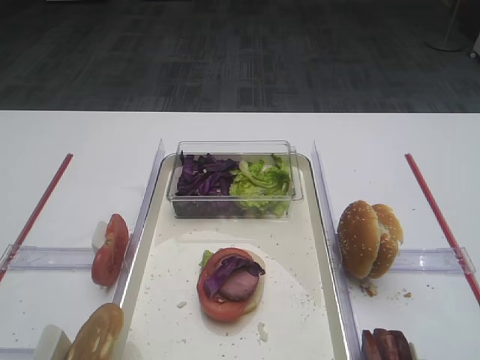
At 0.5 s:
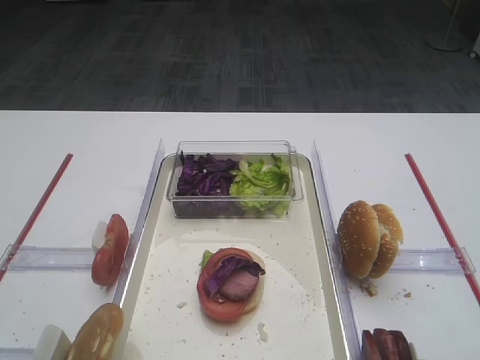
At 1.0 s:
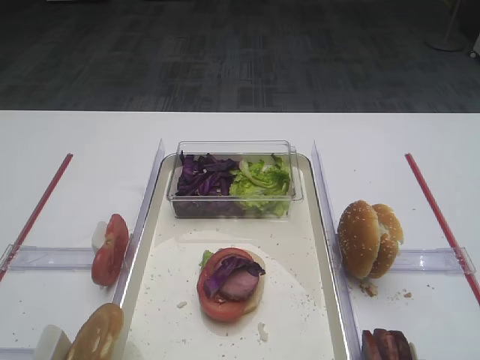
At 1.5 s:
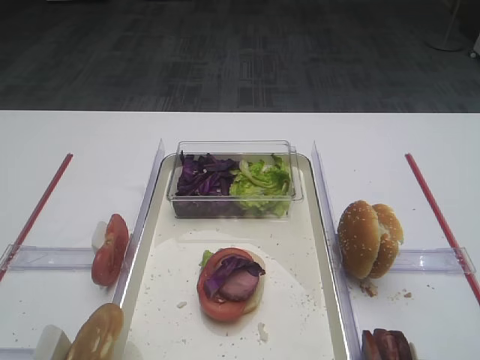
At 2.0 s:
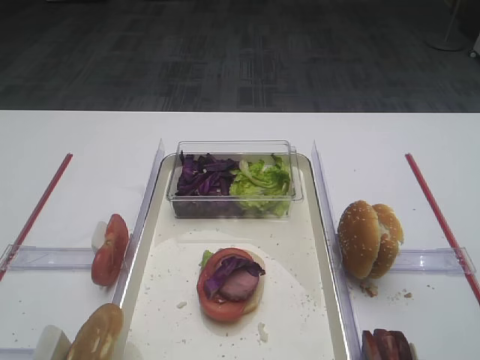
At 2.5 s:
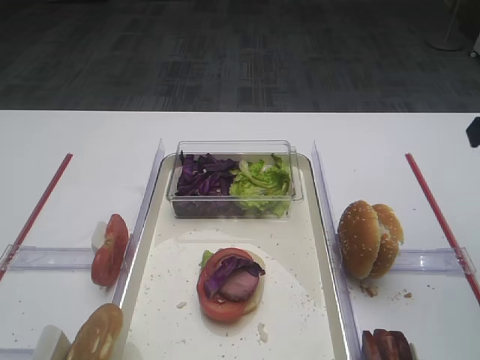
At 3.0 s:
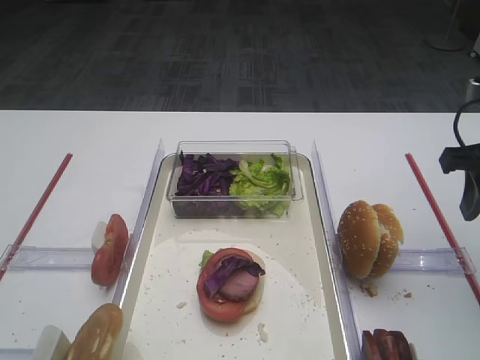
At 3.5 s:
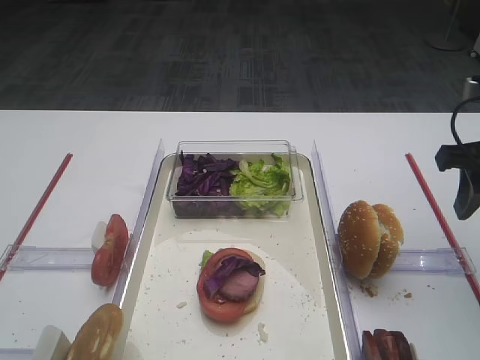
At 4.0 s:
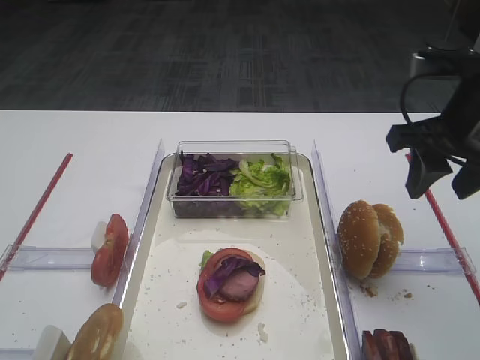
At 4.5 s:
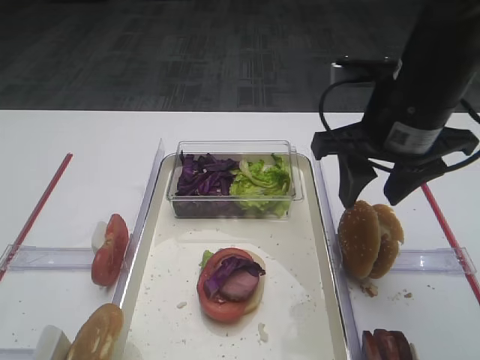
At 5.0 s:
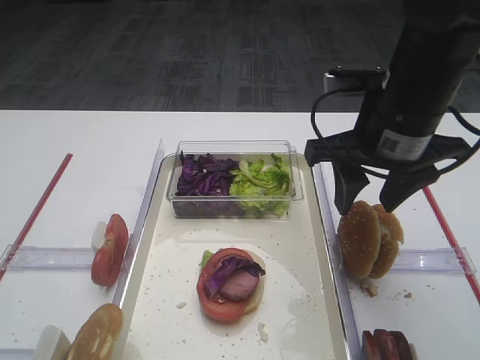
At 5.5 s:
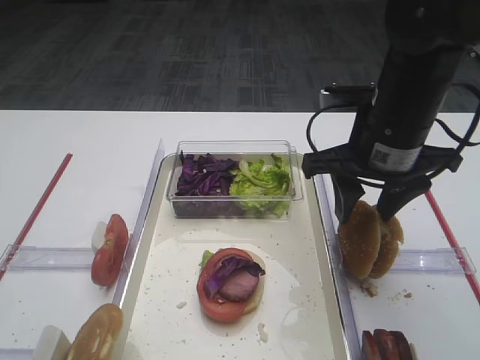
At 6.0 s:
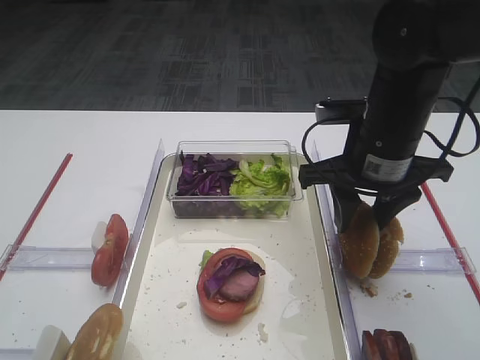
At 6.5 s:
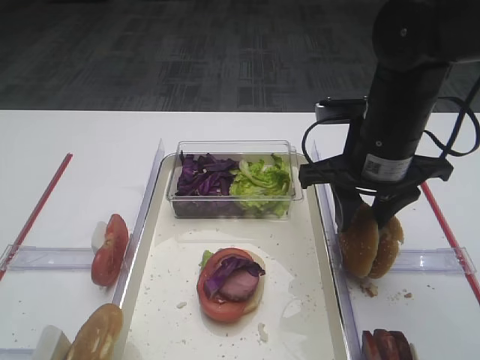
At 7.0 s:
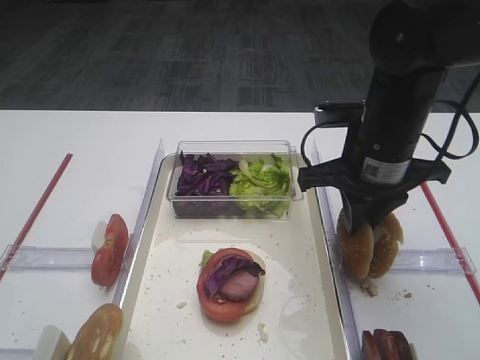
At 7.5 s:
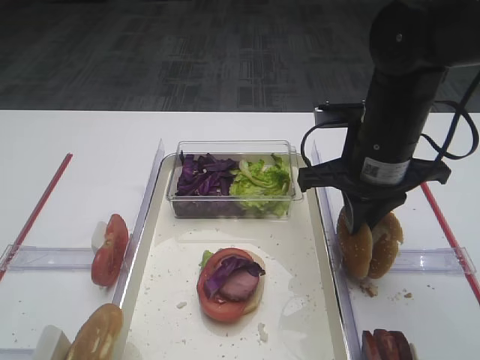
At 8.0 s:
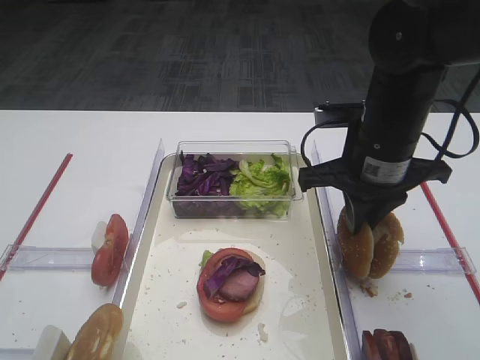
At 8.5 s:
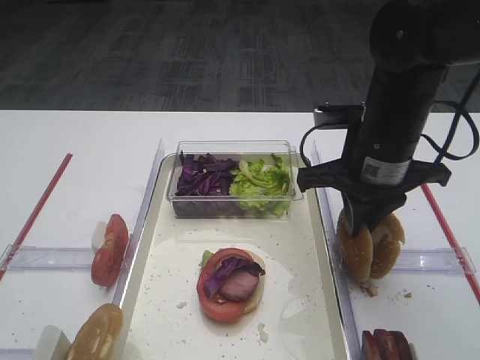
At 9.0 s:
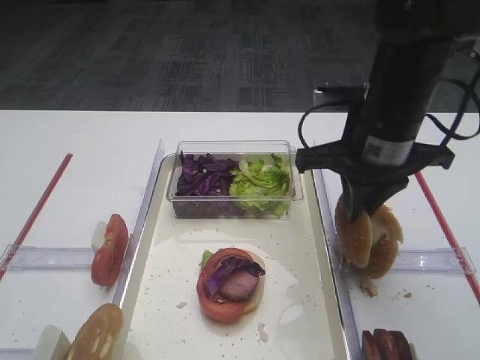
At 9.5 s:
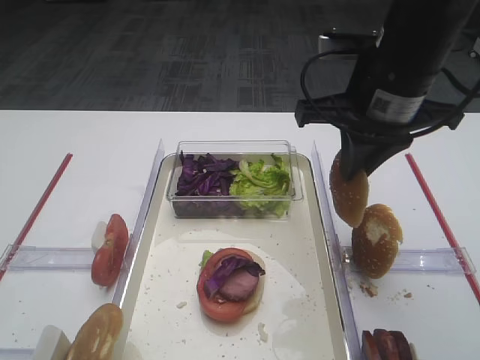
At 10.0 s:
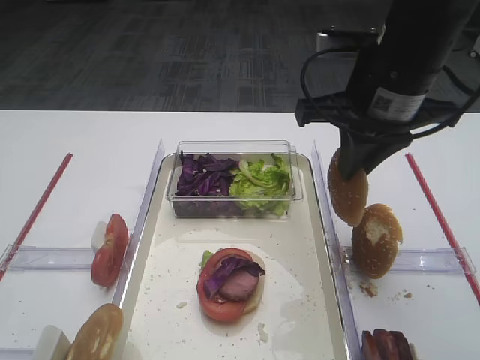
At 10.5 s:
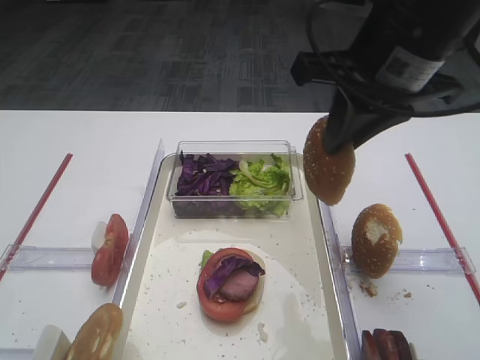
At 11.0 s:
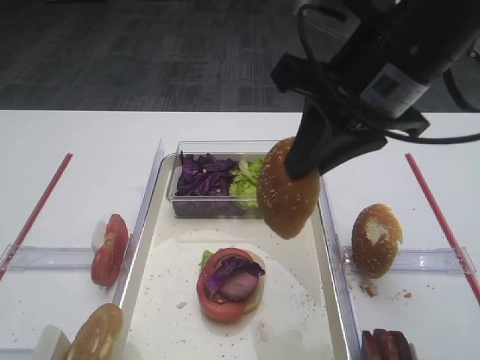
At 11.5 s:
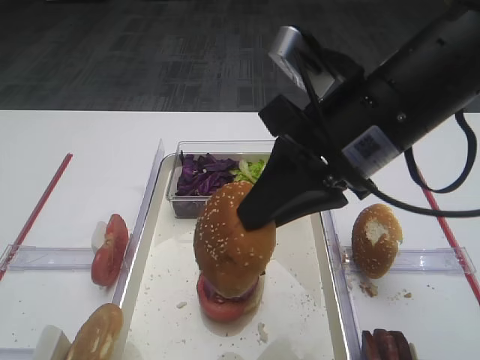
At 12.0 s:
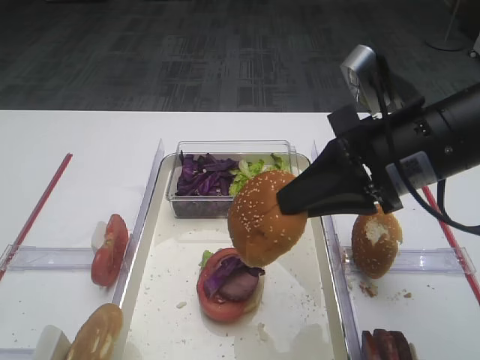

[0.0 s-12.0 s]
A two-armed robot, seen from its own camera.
Step, 0.0 to 10.0 s: Pick up the hamburger lid with the right gripper.
2.0 to 4.0 s: The right gripper travels forward and downward by roughly 15 cm.
4.0 to 6.0 s: The right gripper moves to the left, about 10 cm.
6.0 to 8.0 s: The right gripper closes up.
8.0 to 10.0 s: The right gripper travels upward by approximately 10 cm.
10.0 to 12.0 s: The right gripper travels backward by roughly 5 cm.

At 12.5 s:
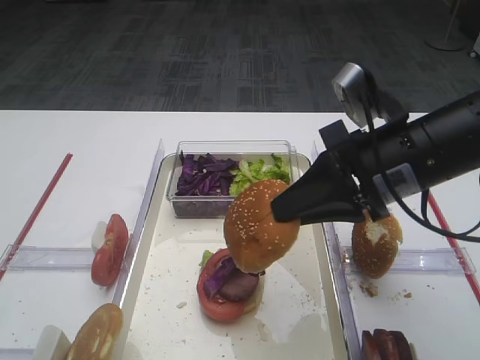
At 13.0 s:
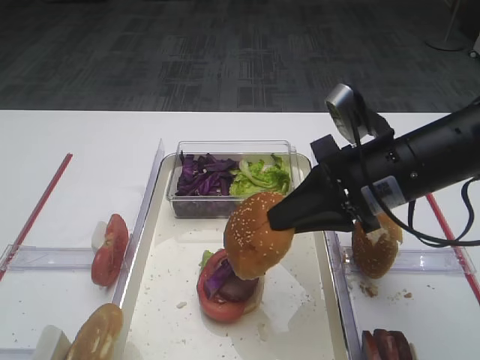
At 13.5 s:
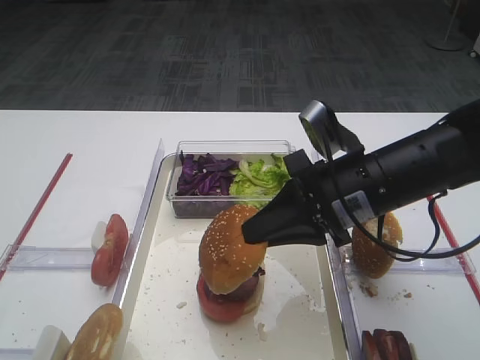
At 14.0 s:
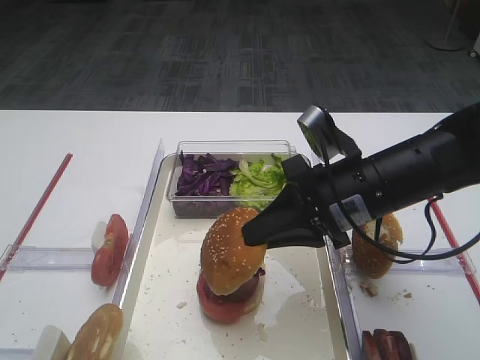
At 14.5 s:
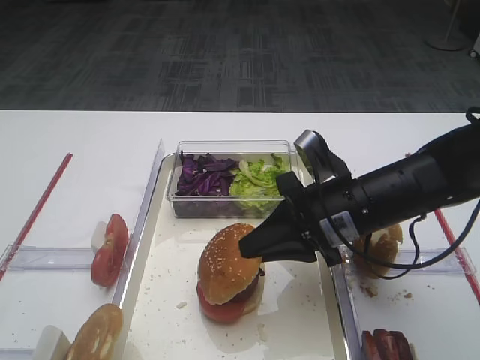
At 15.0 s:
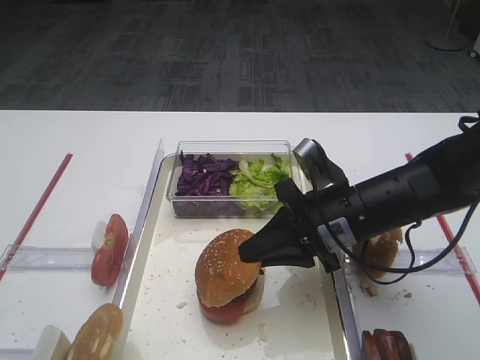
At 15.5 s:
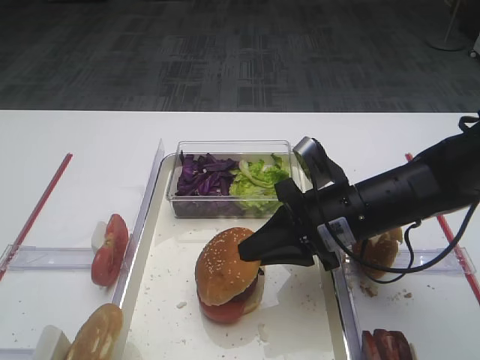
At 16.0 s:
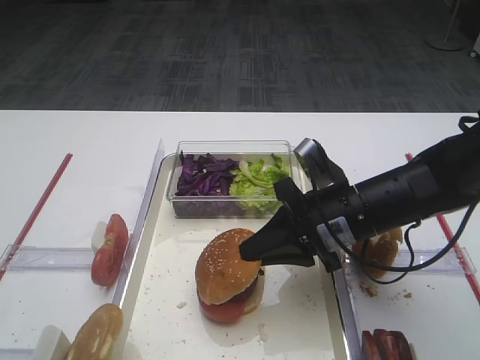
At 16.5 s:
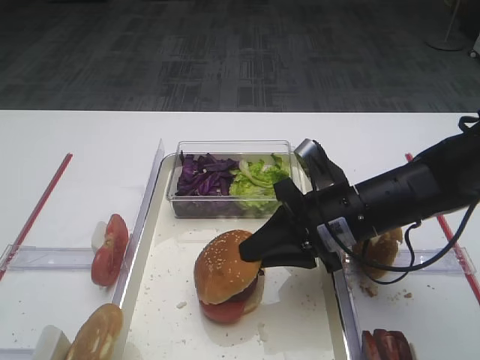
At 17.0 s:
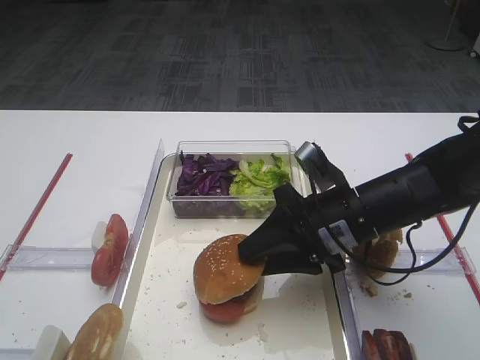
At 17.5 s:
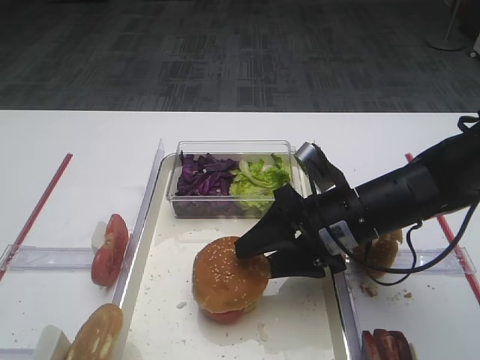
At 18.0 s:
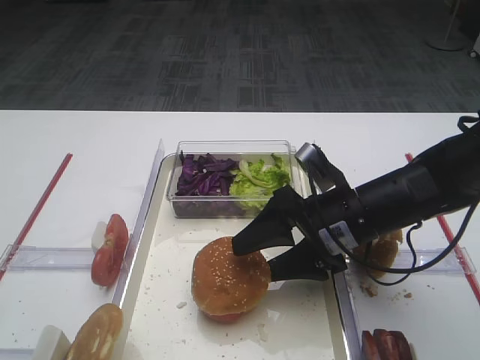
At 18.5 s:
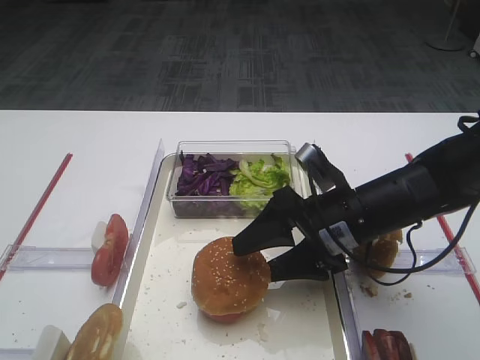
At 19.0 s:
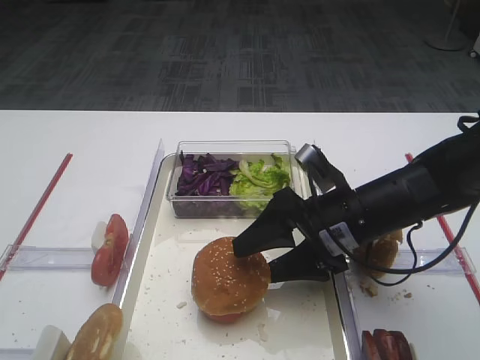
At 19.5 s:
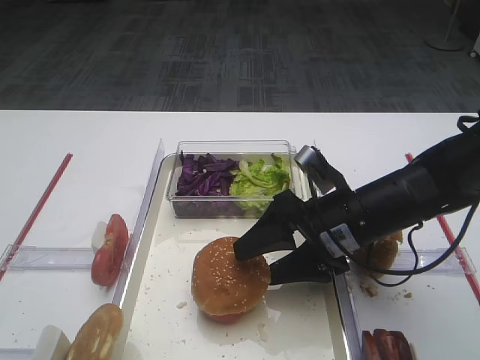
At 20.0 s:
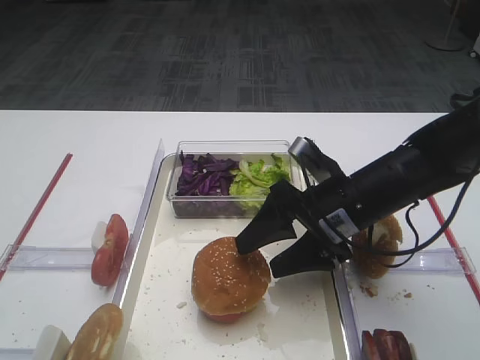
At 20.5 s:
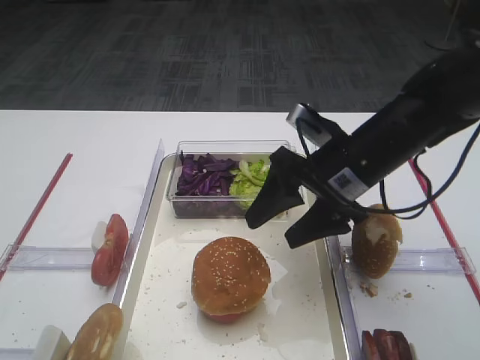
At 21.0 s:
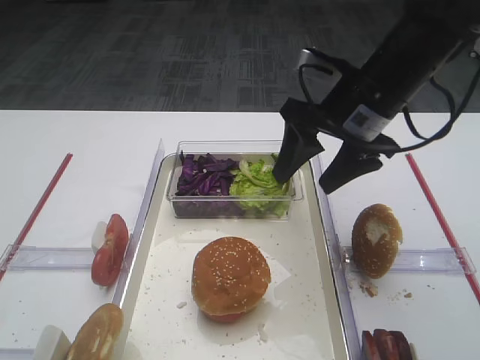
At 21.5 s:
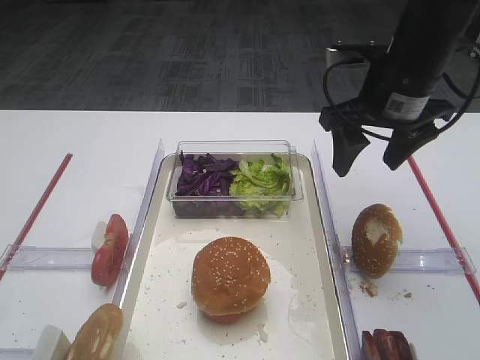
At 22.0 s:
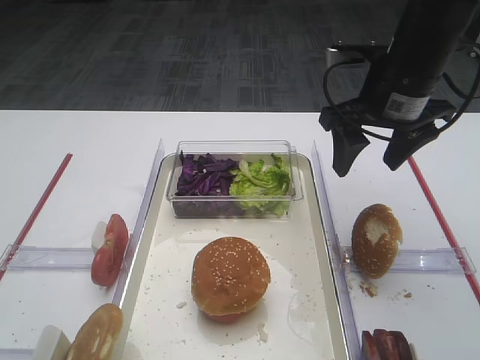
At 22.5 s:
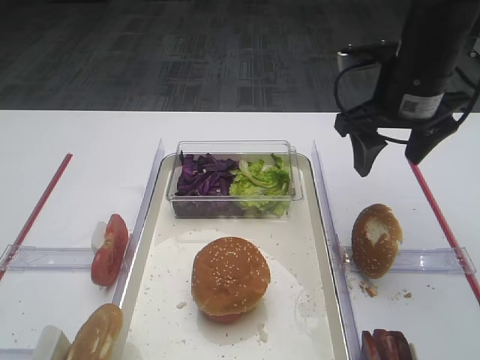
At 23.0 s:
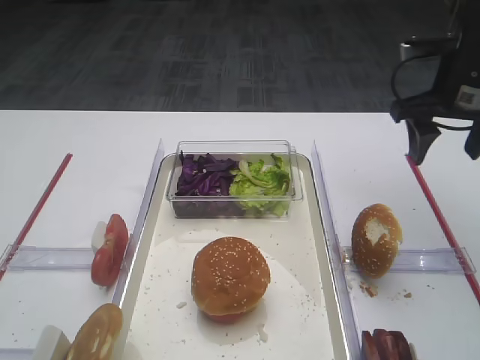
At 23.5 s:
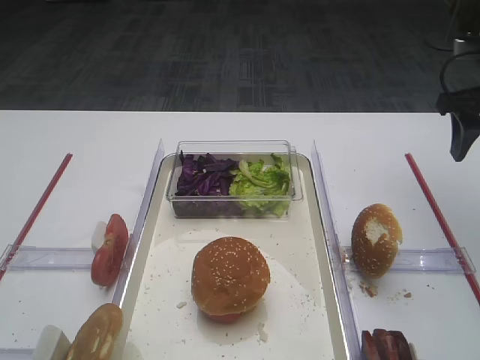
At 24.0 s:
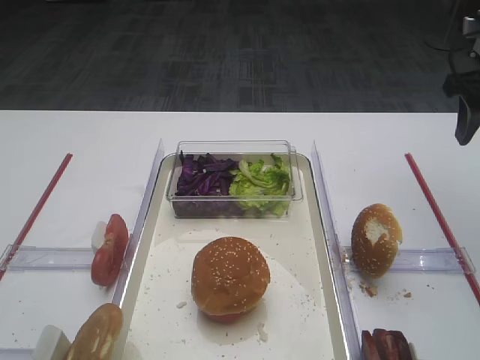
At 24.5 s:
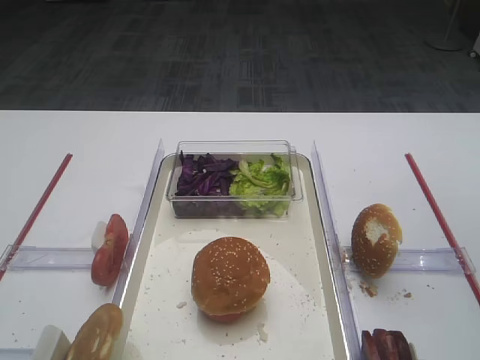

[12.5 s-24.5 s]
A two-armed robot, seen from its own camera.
Step, 12.5 to 20.0 s: Place the hamburger lid on the purple cabbage with the right gripper.
12.5 to 14.5 s: The right gripper is displaced downward by about 10 cm.
14.5 to 16.5 s: There are only small adjustments of the grippers.
16.5 to 18.5 s: The right gripper opens.
18.5 to 20.5 s: The right gripper travels upward by roughly 5 cm.
20.5 to 22.5 s: The right gripper goes approximately 10 cm upward and to the right.
22.5 to 24.5 s: The right gripper is displaced to the right, upward and backward by roughly 15 cm.

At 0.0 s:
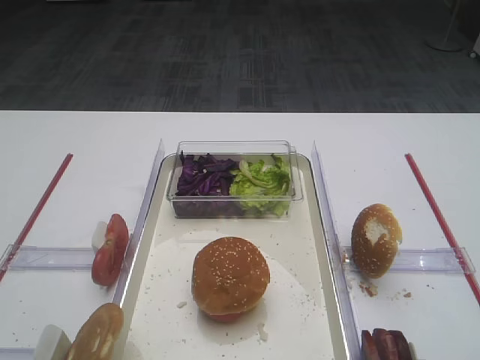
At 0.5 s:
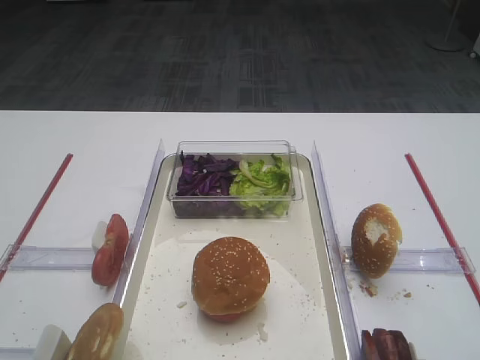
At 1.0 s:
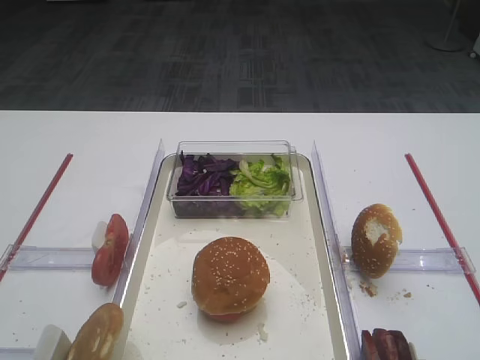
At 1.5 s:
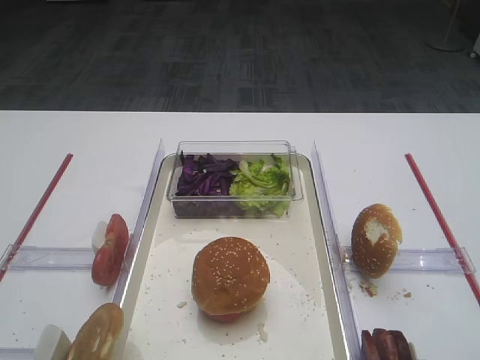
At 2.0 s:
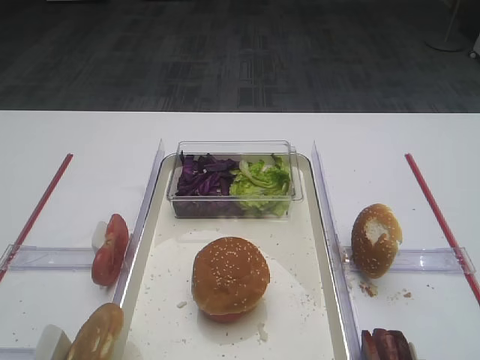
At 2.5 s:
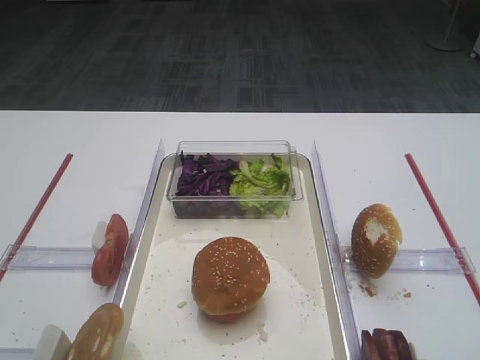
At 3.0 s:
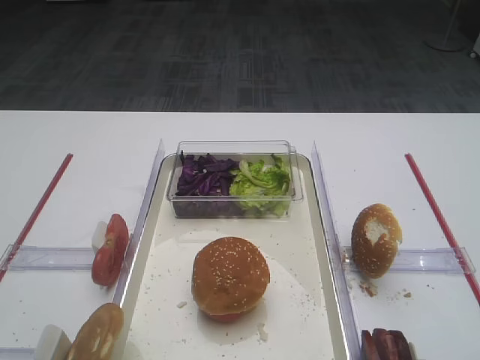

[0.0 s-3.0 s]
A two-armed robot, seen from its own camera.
0.0 to 3.0 s: Both grippers stay about where they are.
